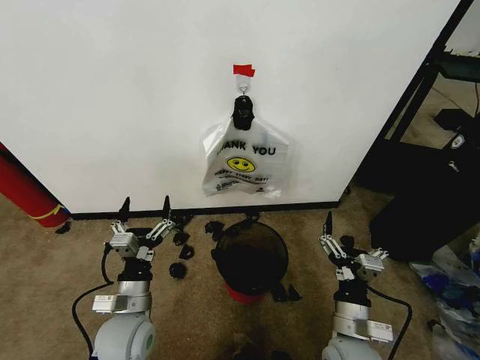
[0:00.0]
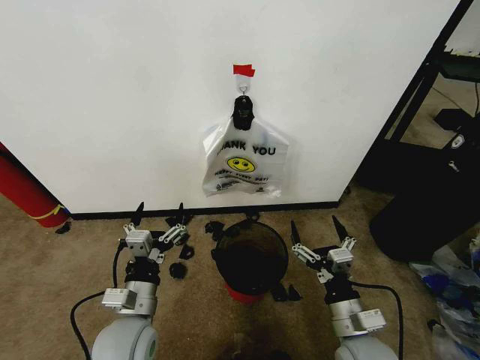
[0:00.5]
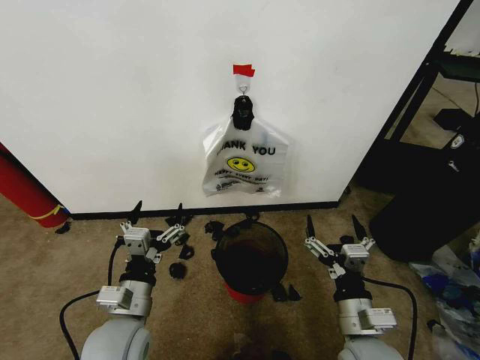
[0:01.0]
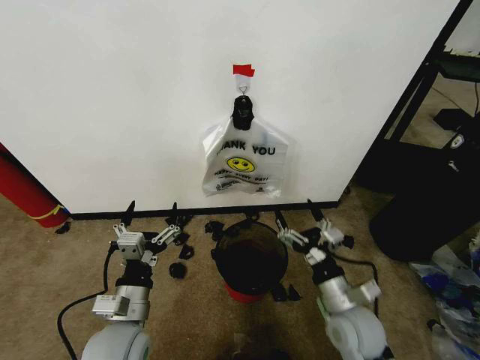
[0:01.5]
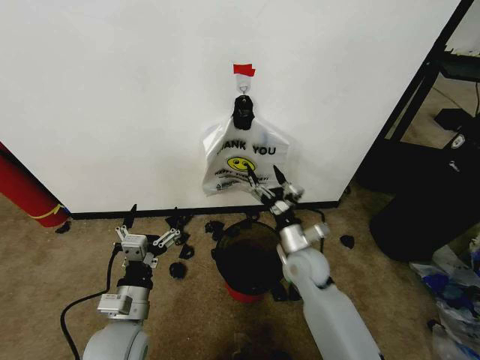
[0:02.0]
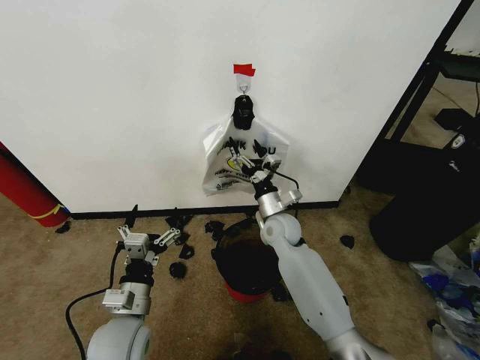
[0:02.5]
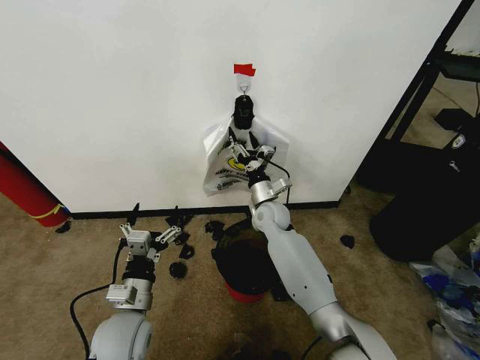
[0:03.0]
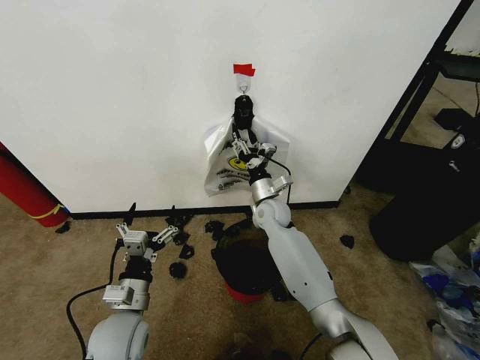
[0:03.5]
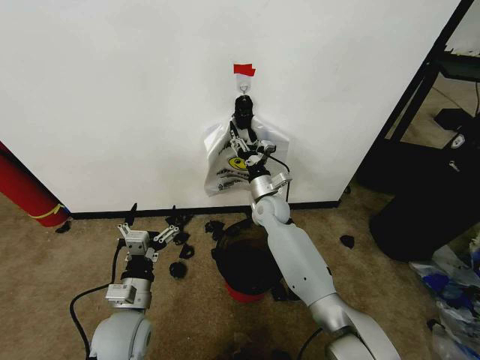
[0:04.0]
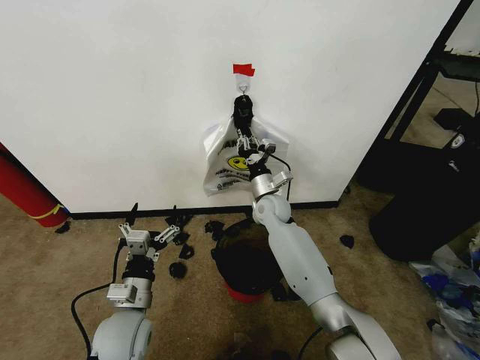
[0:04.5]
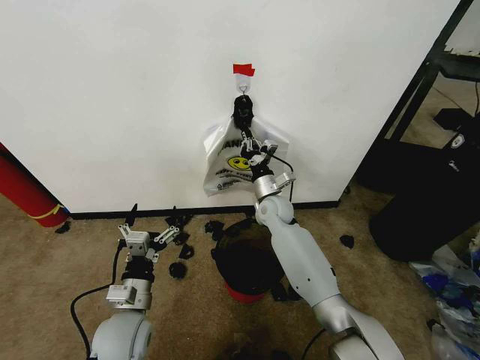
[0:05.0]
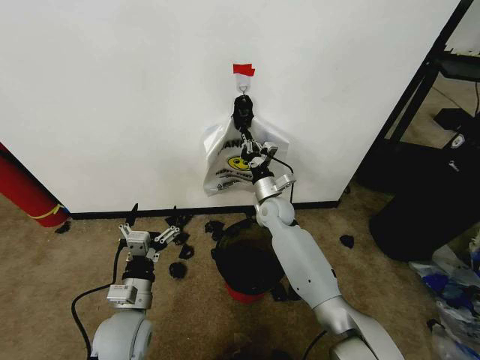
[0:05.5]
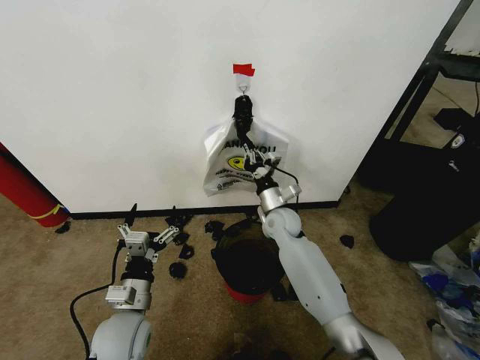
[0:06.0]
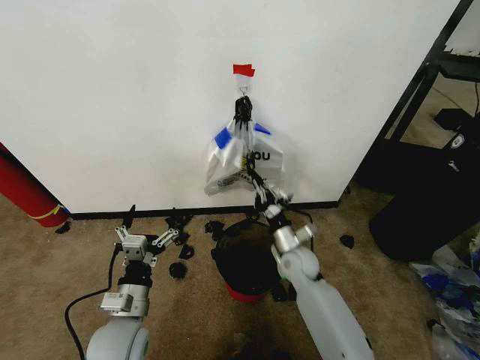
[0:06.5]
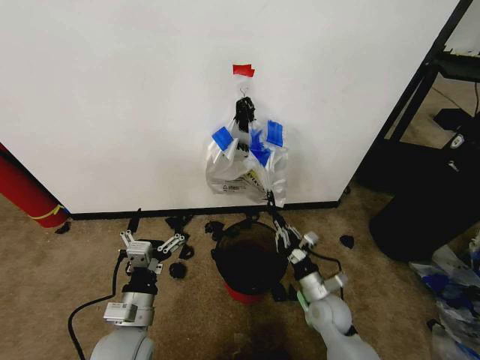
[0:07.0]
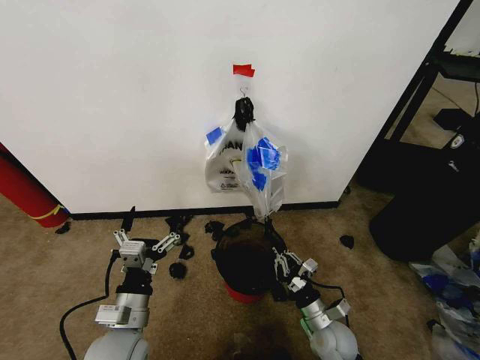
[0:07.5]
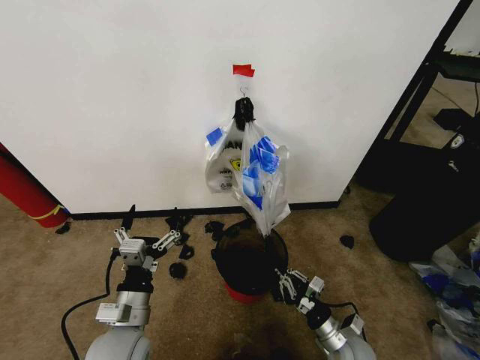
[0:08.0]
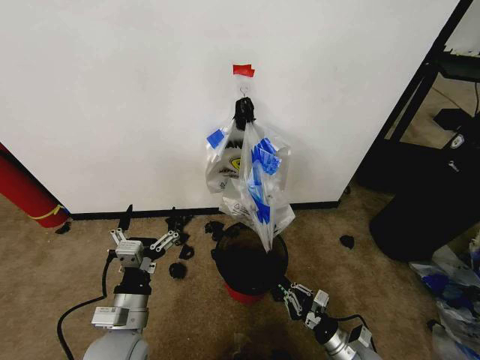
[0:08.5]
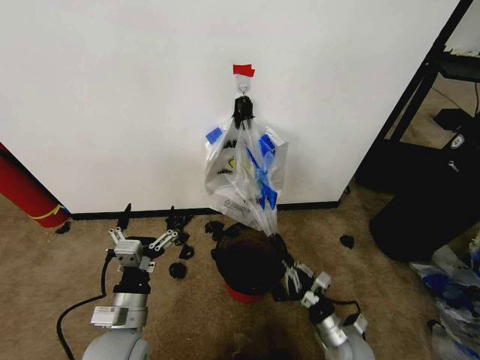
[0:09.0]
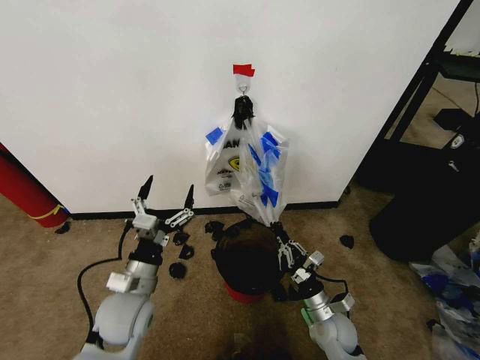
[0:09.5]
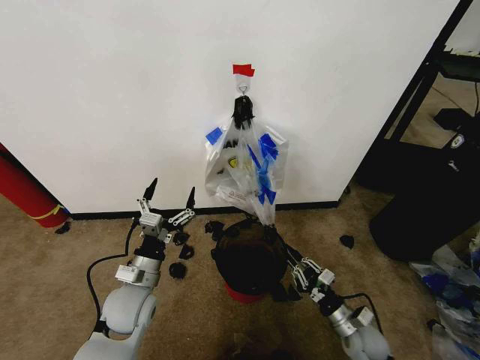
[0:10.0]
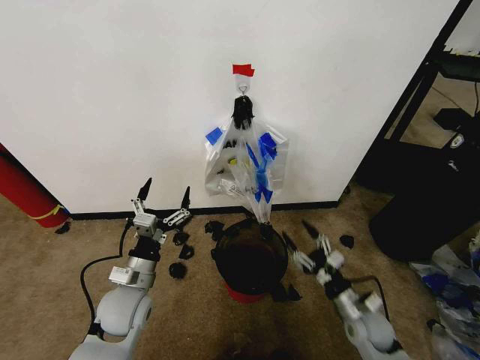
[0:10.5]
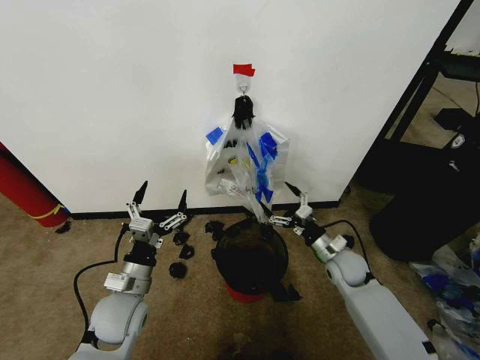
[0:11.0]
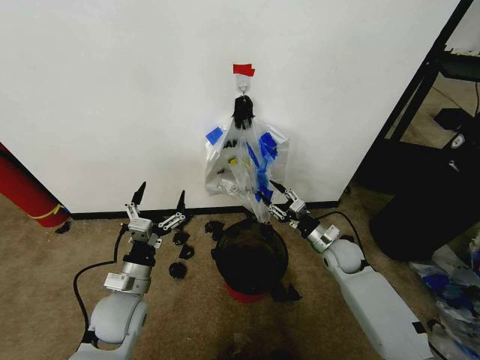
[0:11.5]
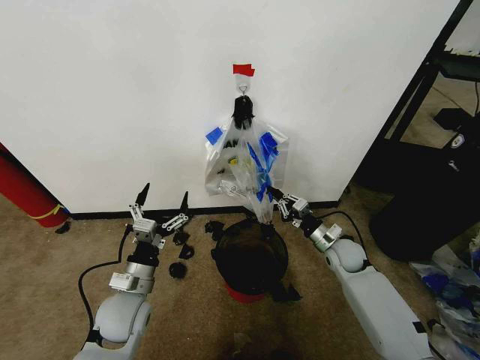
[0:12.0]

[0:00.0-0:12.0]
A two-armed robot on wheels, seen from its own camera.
Task of the whole recording: Pick up the garbage bag from the wall and place it over the trash bin.
0:02.0 to 0:04.0: The right gripper travels forward and to the left by some 15 cm.
0:04.0 to 0:06.0: The right gripper closes its fingers.
0:06.0 to 0:08.0: The right gripper goes roughly 35 cm backward, downward and to the right.
0:08.0 to 0:10.0: The right gripper ends up about 5 cm from where it was. The left gripper moves forward, about 10 cm.
0:10.0 to 0:12.0: The right gripper goes some 20 cm forward and upward, and opens and closes again.

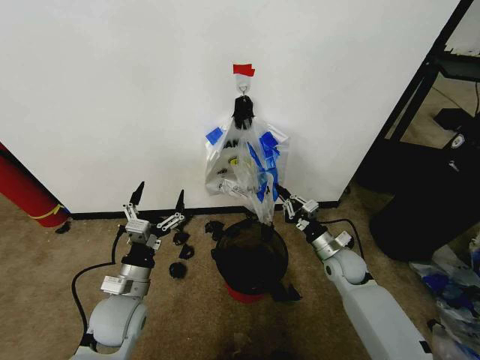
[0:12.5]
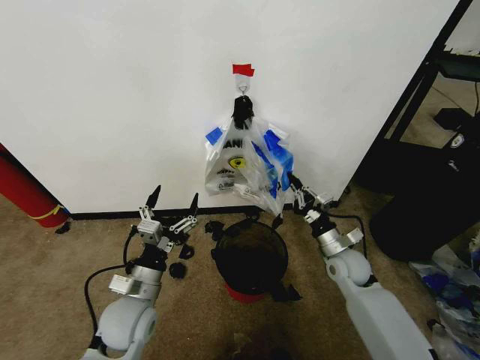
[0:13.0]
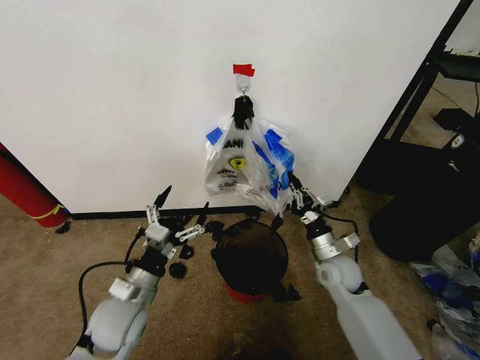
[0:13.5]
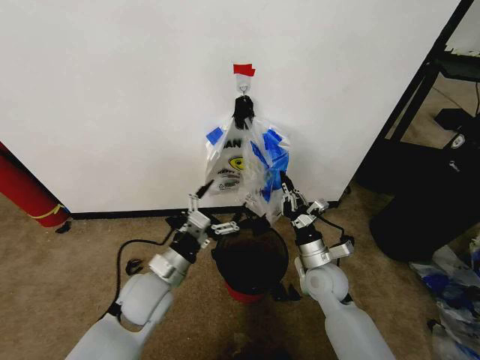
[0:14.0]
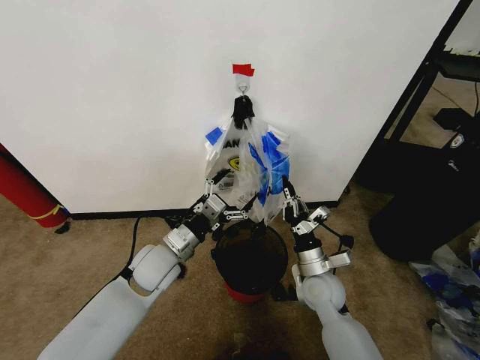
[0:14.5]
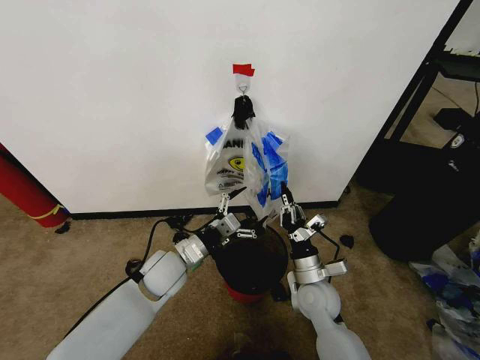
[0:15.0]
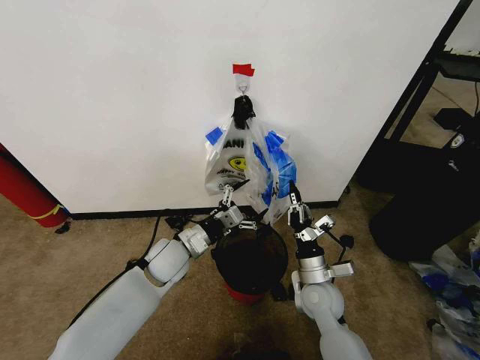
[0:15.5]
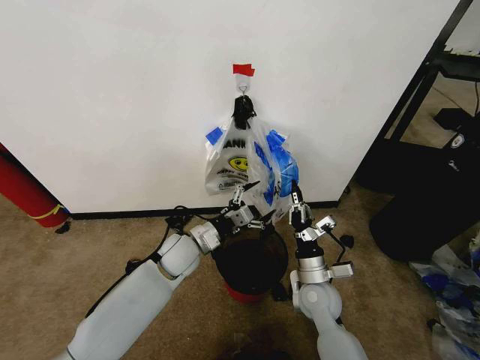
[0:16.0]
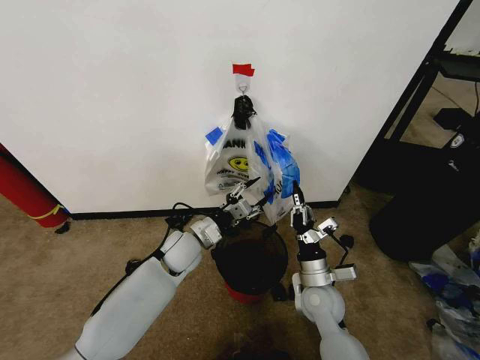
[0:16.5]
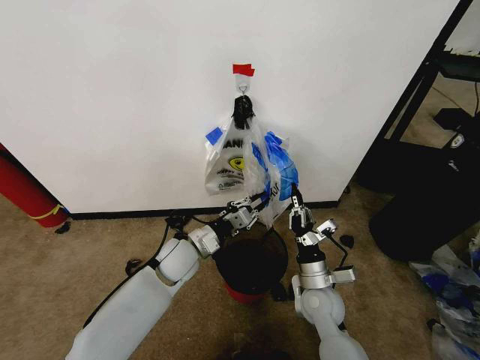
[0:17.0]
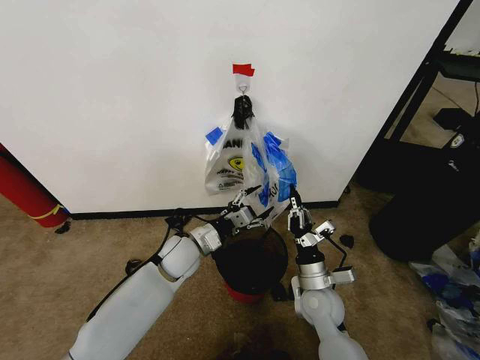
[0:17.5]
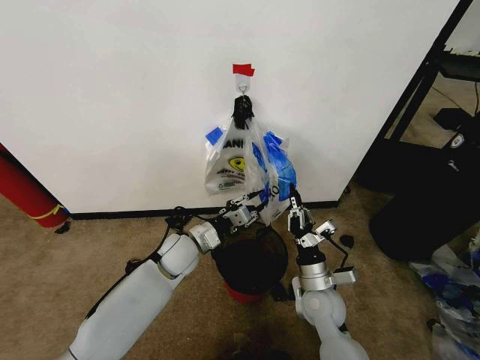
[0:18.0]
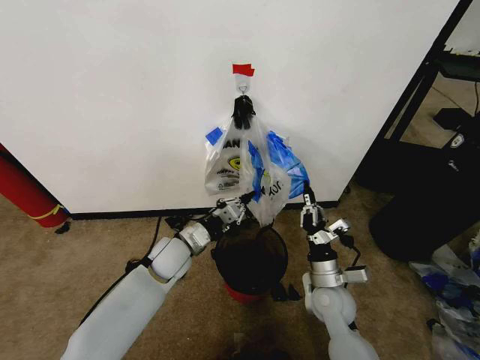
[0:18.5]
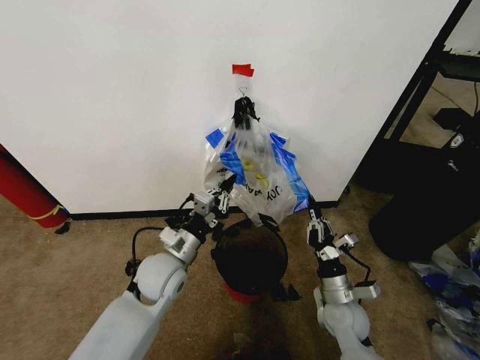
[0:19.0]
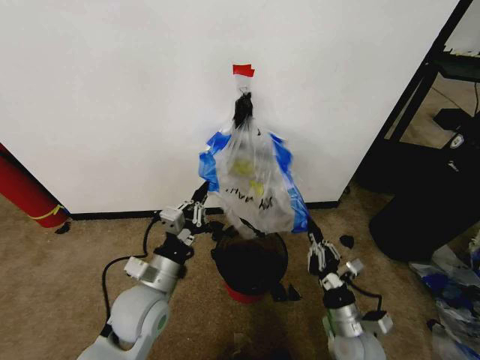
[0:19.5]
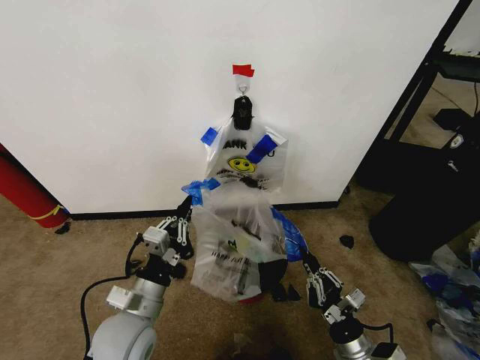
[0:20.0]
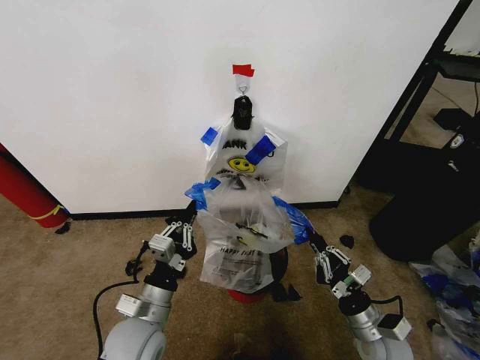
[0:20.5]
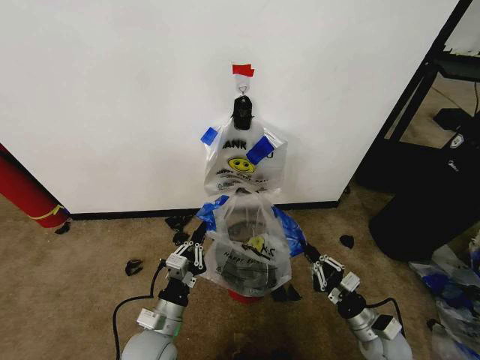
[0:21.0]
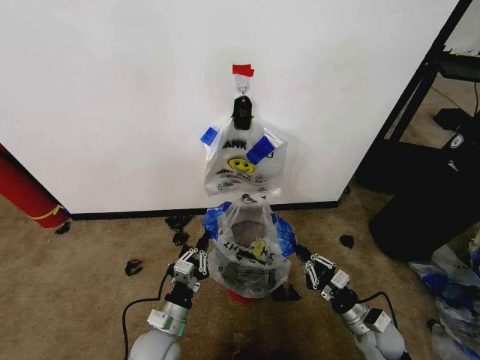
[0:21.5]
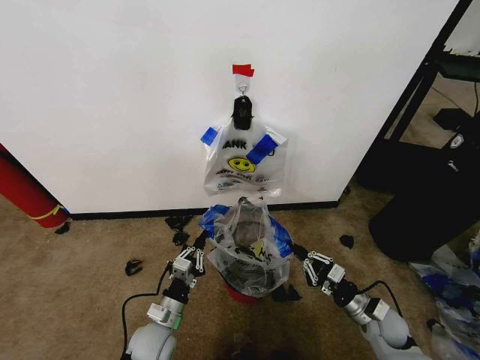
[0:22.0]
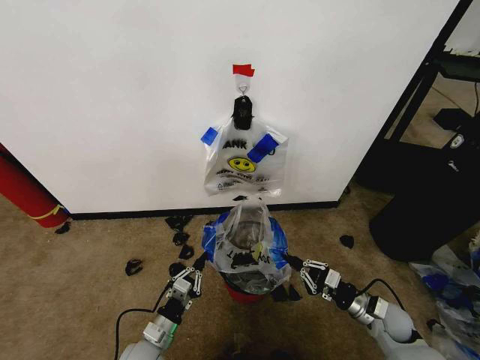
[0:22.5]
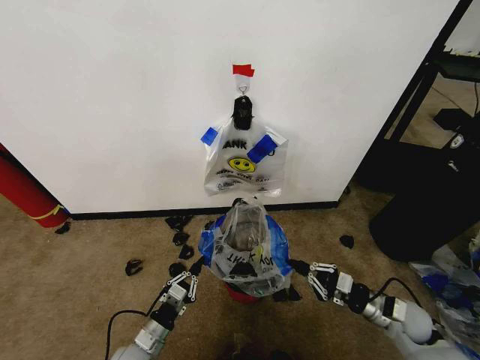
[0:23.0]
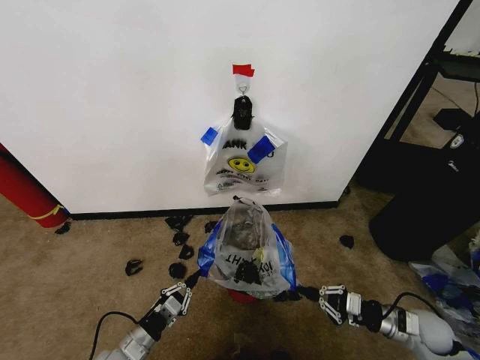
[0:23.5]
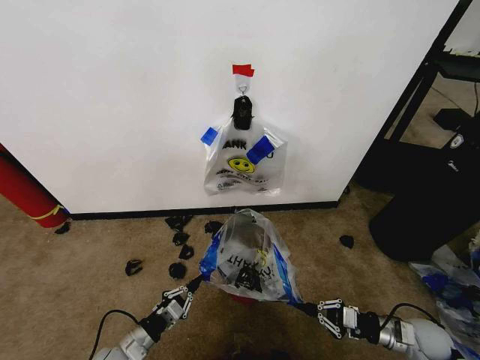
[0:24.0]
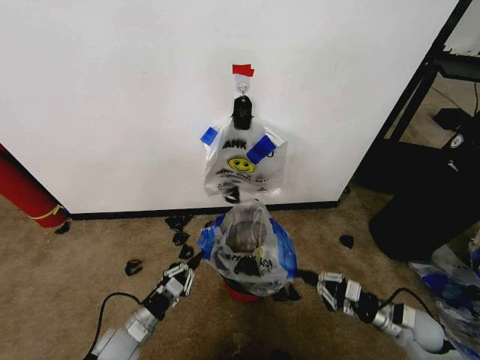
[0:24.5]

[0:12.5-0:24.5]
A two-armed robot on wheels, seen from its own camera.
Task of the whole recording: Pick up the garbage bag from the wall and place it over the trash bin.
0:12.5 to 0:14.5: The right gripper travels to the left and backward by about 10 cm. Meanwhile the left gripper is displaced forward and to the right by approximately 10 cm.
0:14.5 to 0:16.5: The left gripper shifts about 5 cm forward, and closes.
0:16.5 to 0:18.5: The left gripper closes its fingers.
0:18.5 to 0:20.5: The left gripper is displaced backward by about 20 cm, while the right gripper travels to the right and backward by some 10 cm.
0:20.5 to 0:22.5: The left gripper heads downward, covering some 15 cm. The right gripper shifts some 10 cm forward and to the right.
0:22.5 to 0:24.5: The right gripper moves some 5 cm, while the left gripper travels to the left by approximately 5 cm.

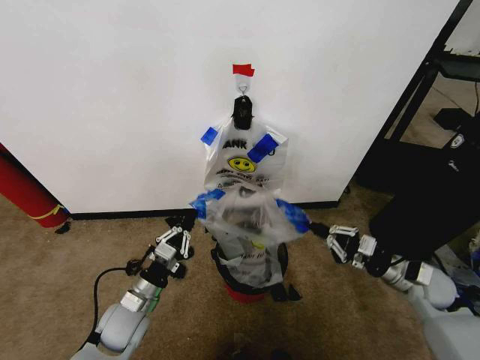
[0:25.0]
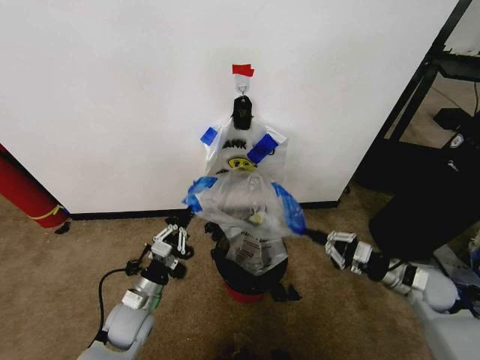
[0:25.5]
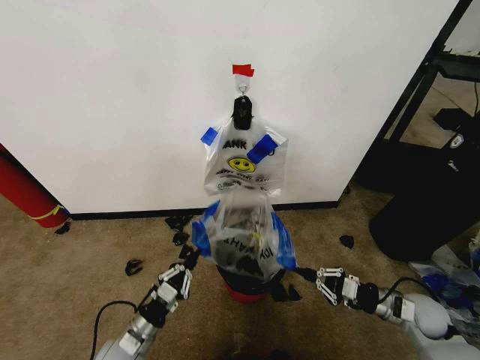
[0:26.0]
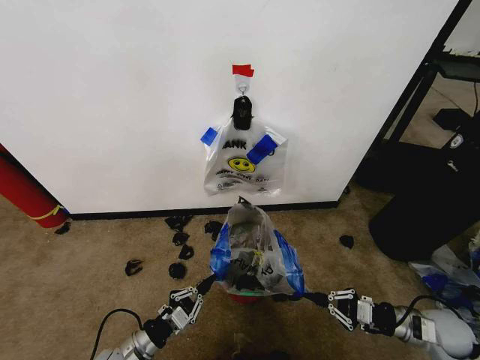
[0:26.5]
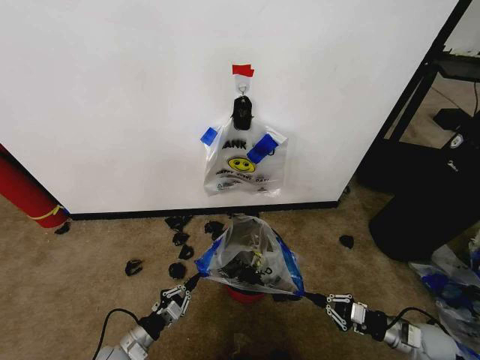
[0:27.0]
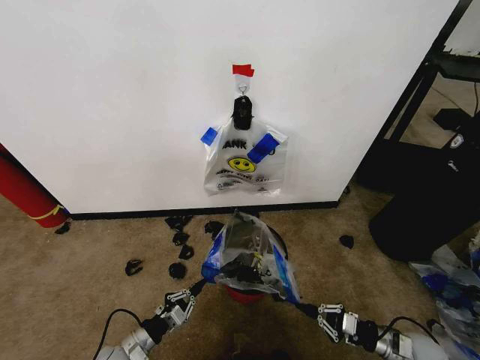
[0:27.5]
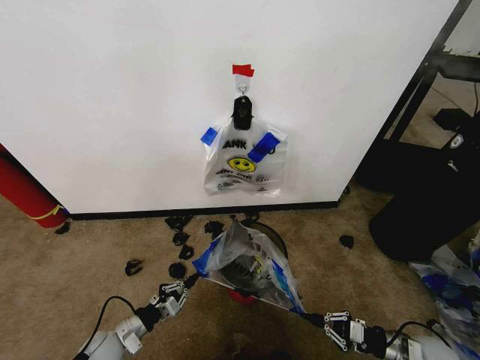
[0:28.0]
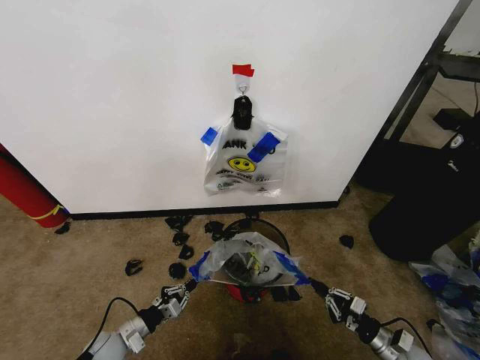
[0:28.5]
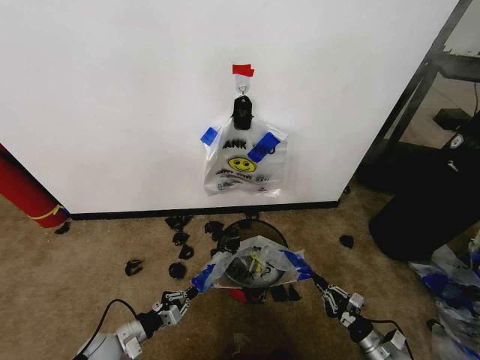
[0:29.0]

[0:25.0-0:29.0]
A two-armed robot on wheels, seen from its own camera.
Task of the whole recording: Pick up the garbage bag from the wall and place it over the trash bin.
0:25.0 to 0:27.0: The left gripper shifts roughly 15 cm downward, backward and to the left. Meanwhile the right gripper shifts about 15 cm downward and backward.
0:27.0 to 0:29.0: The right gripper moves downward and to the left, some 10 cm.
